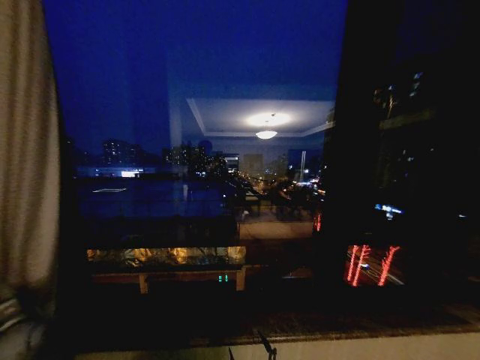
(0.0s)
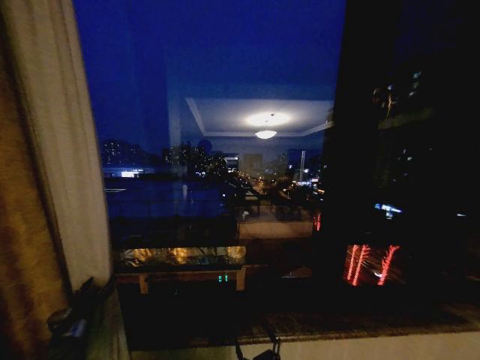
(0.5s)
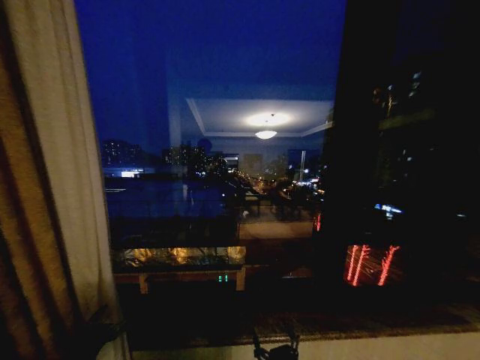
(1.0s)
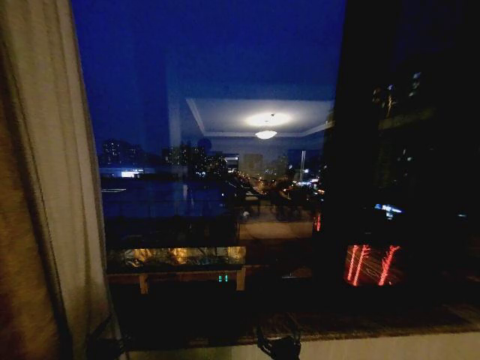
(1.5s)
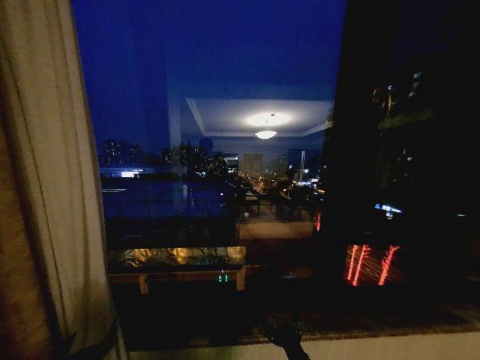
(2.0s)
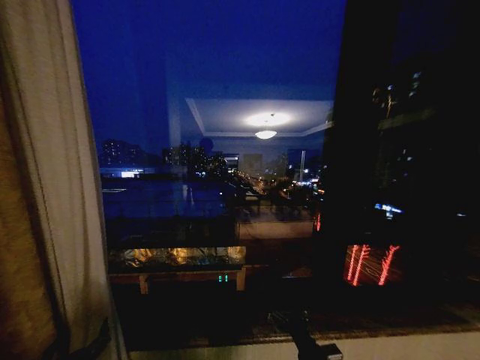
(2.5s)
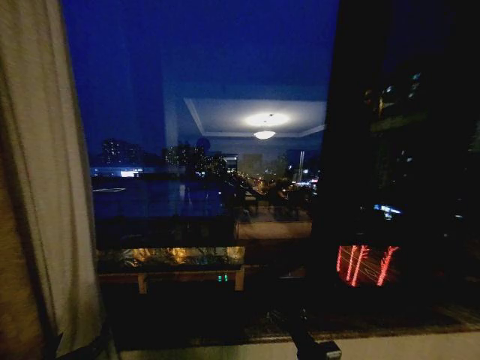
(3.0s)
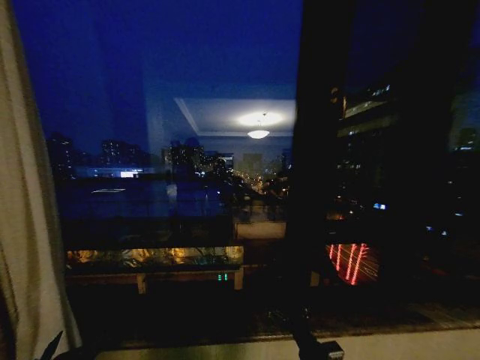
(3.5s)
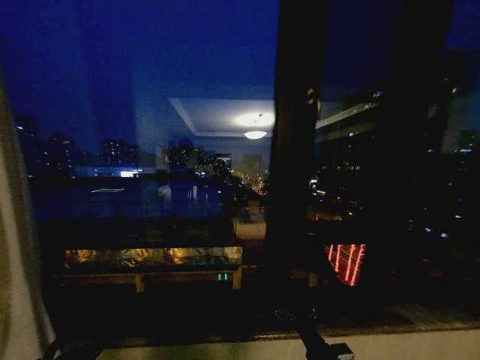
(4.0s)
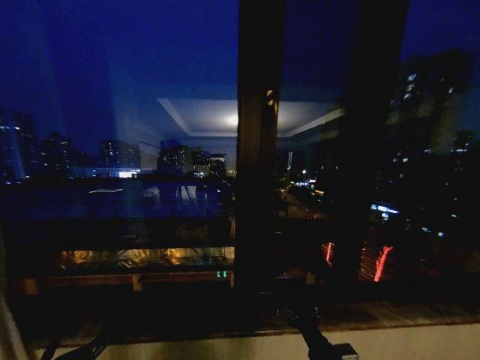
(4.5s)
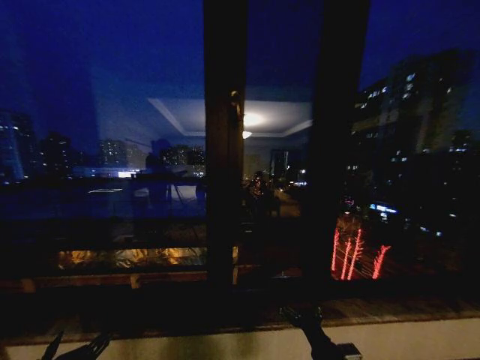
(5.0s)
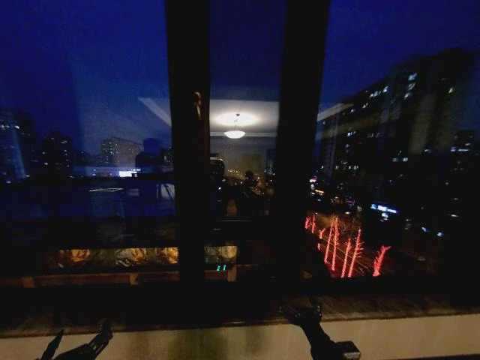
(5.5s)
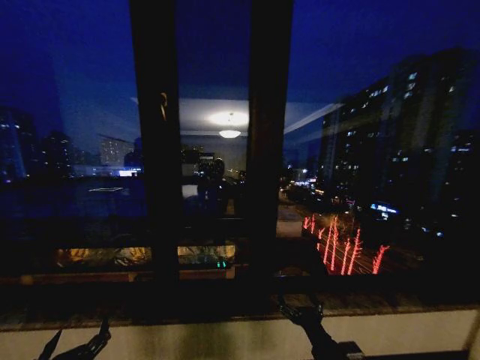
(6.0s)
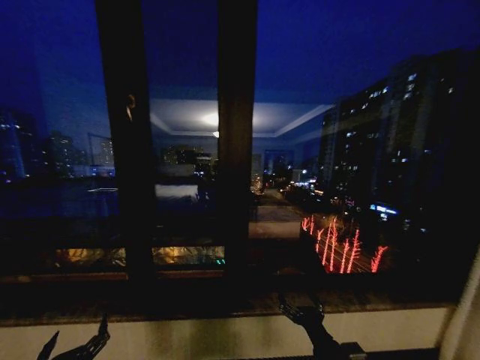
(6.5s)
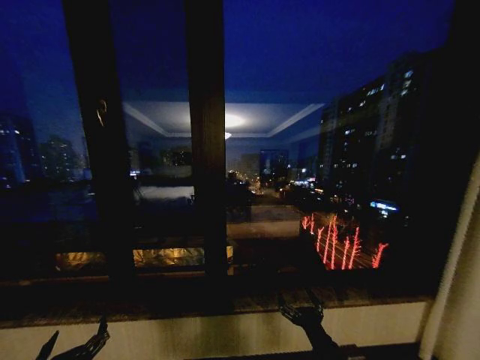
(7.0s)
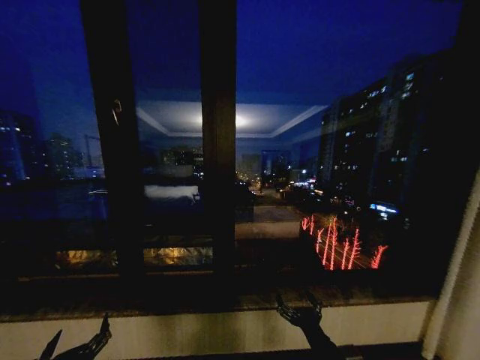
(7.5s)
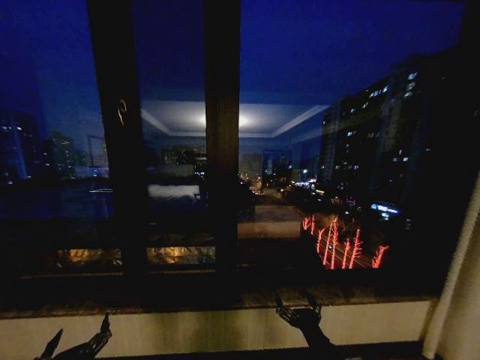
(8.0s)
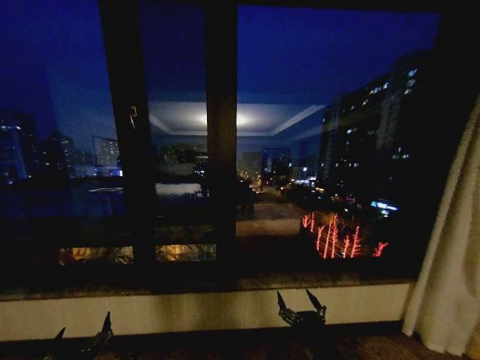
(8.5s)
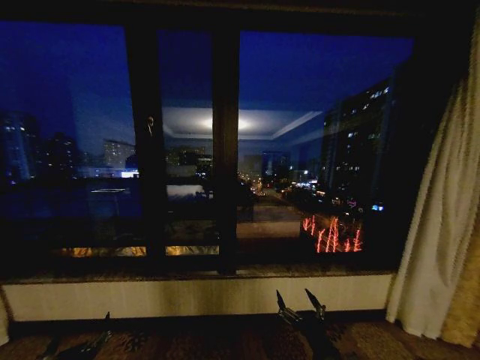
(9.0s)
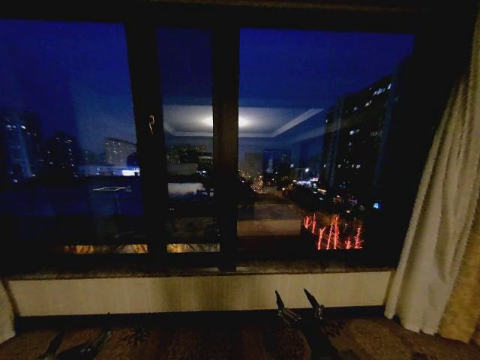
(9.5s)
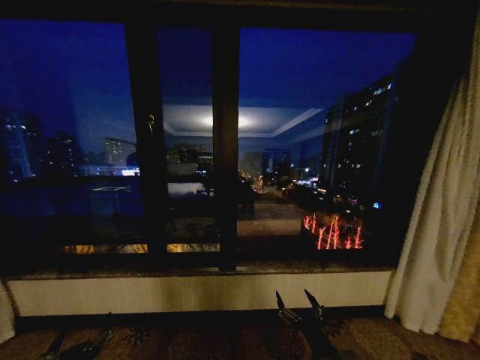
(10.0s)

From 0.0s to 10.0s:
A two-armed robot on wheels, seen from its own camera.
Task of the whole recording: Open the curtains by pulling them apart, changing their state from closed to fully open.
From 0.0s to 2.0s: The right gripper goes roughly 10 cm forward, upward and to the right, while the left gripper shifts roughly 30 cm to the right and backward, and opens up.
From 2.0s to 4.0s: The right gripper ends up some 5 cm from where it was.
From 6.0s to 8.0s: Both grippers stay put.

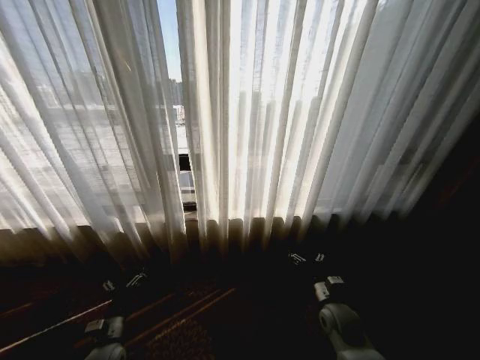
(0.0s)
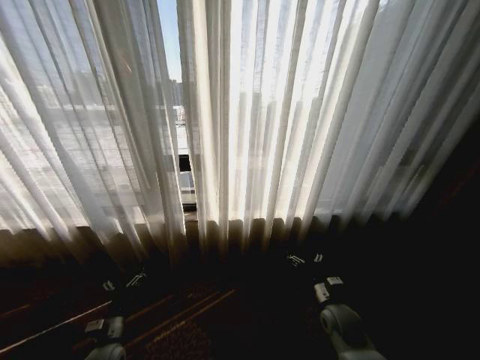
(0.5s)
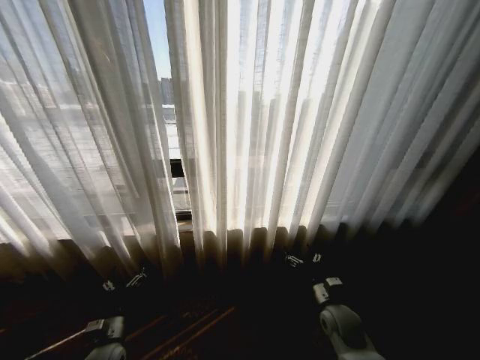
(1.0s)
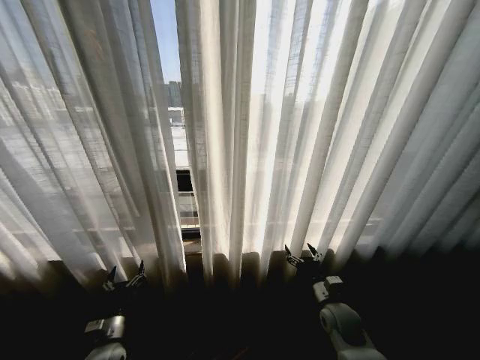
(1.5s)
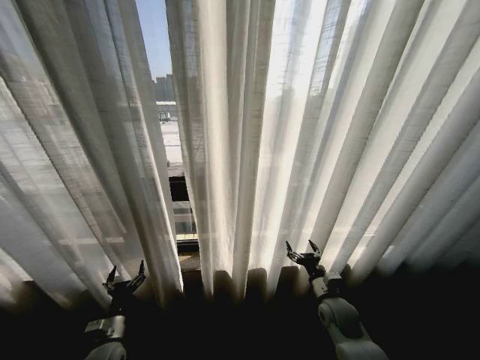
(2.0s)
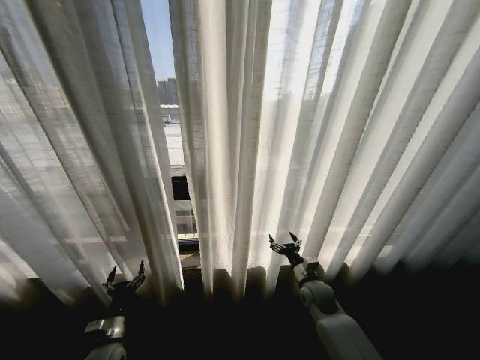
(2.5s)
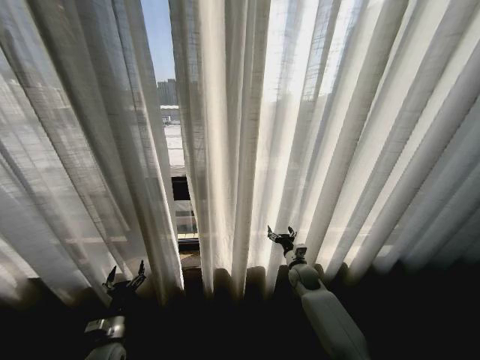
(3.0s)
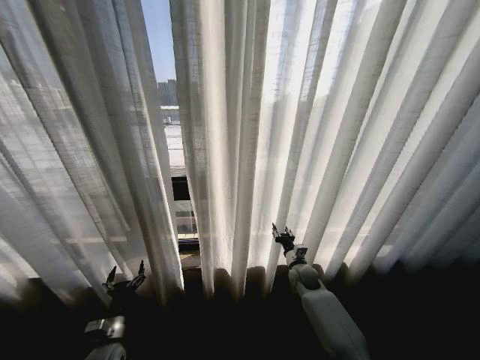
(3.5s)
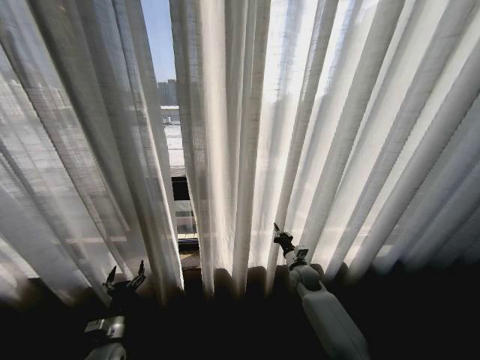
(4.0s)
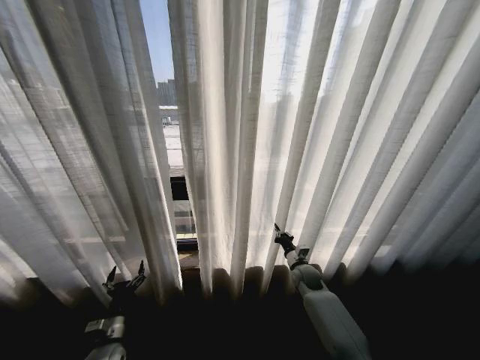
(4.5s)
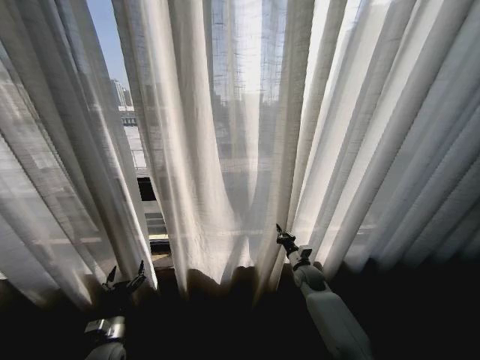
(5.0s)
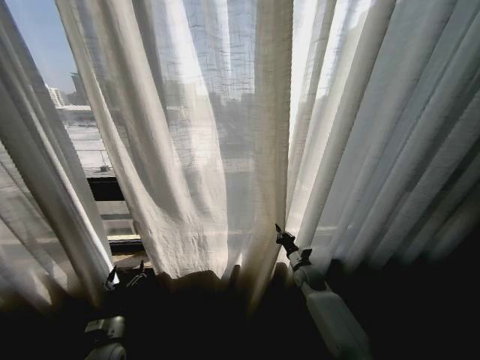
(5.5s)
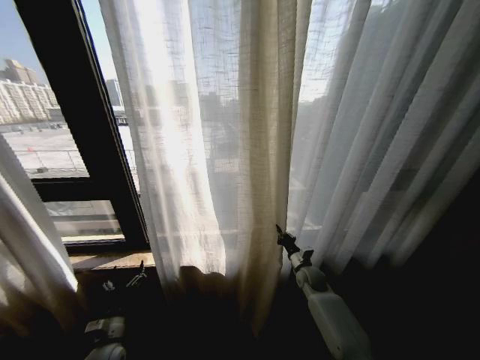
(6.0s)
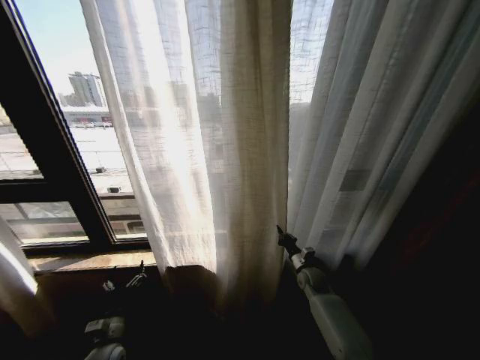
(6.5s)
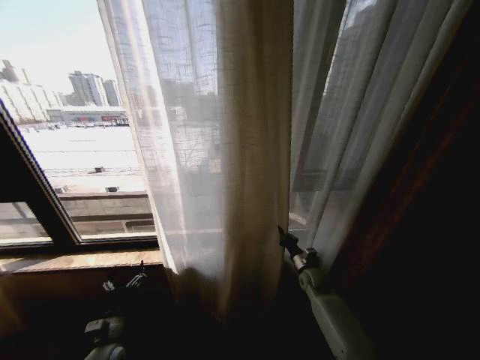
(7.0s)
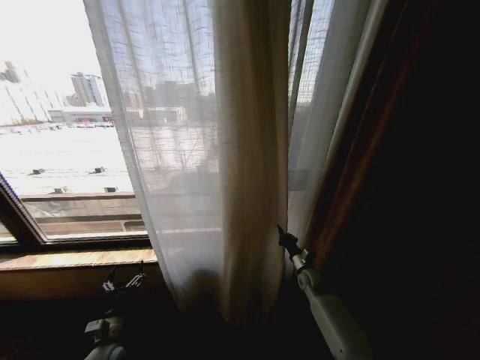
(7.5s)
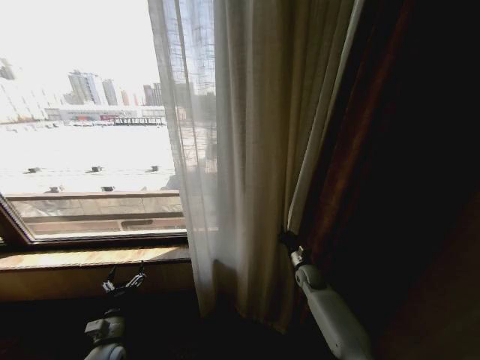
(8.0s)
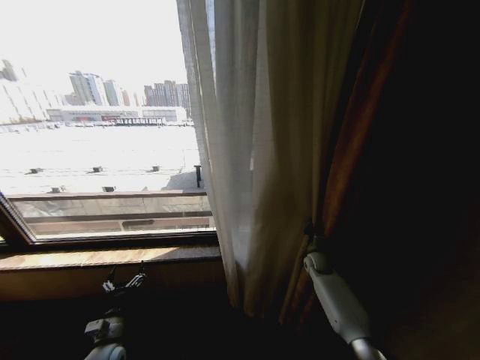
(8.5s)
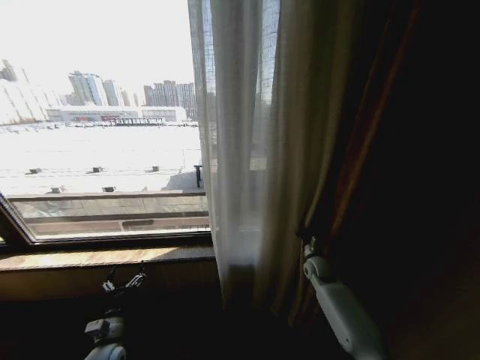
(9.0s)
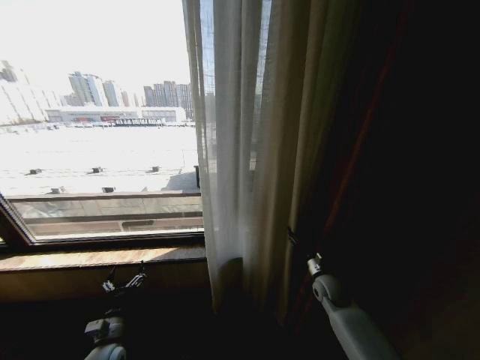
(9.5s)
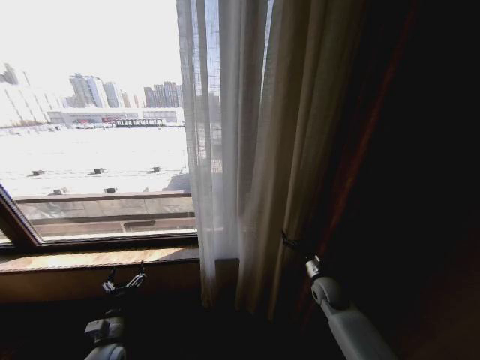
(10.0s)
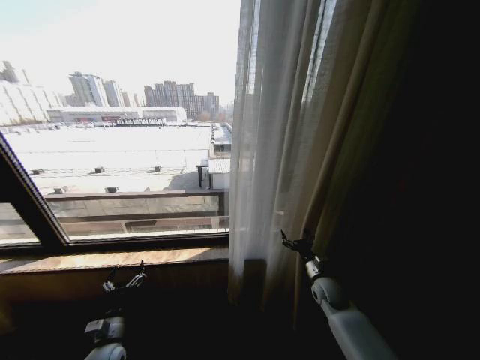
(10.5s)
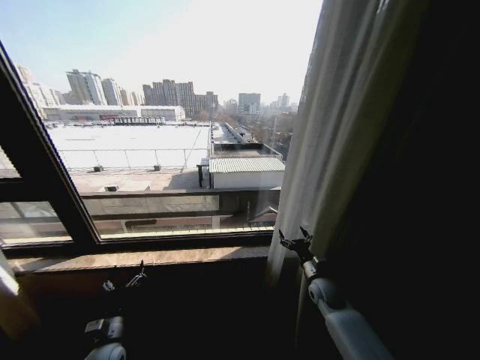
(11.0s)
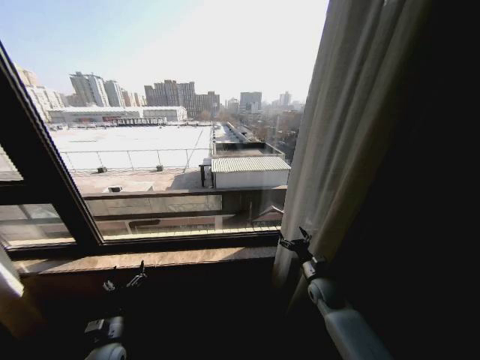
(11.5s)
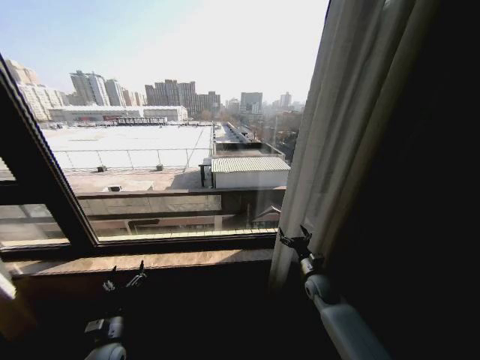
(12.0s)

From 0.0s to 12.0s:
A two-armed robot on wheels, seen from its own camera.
Task of the whole recording: Open the curtains by pulling them apart, changing their state from closed to fully open.
From 2.0s to 4.0s: The right gripper heads forward, covering about 15 cm, and closes up.
From 8.0s to 10.0s: The right gripper is displaced backward by approximately 5 cm, and opens up.

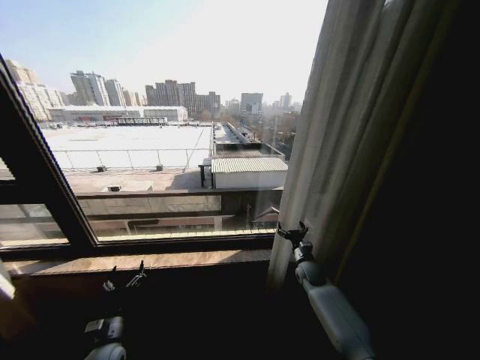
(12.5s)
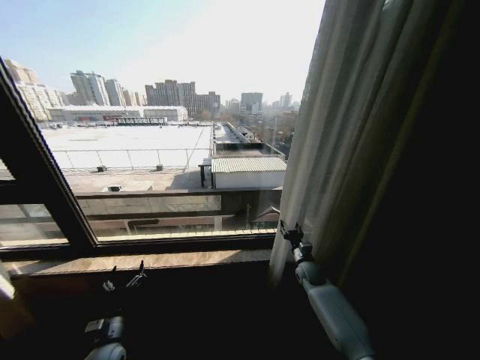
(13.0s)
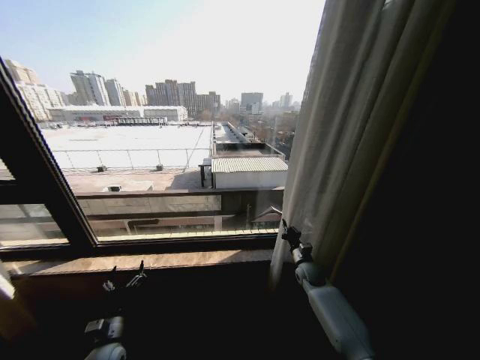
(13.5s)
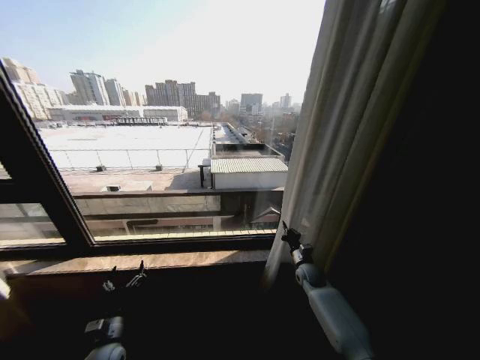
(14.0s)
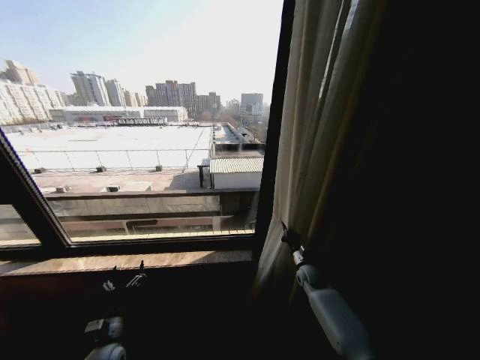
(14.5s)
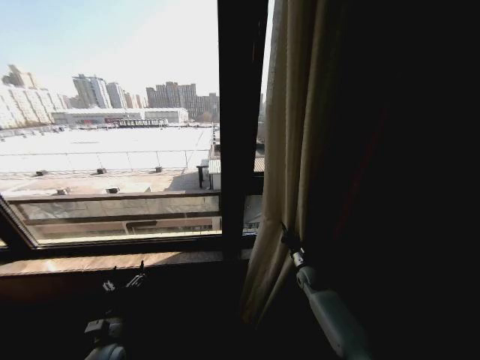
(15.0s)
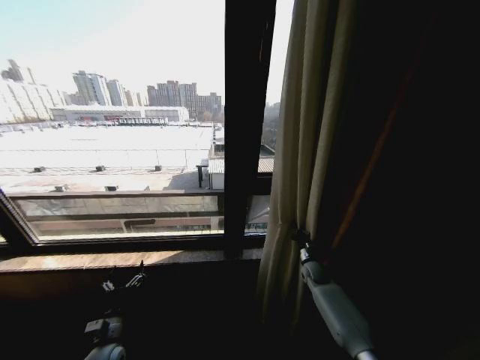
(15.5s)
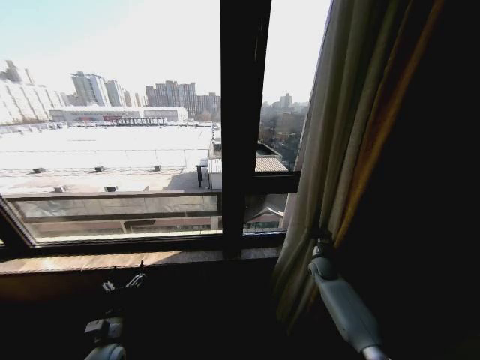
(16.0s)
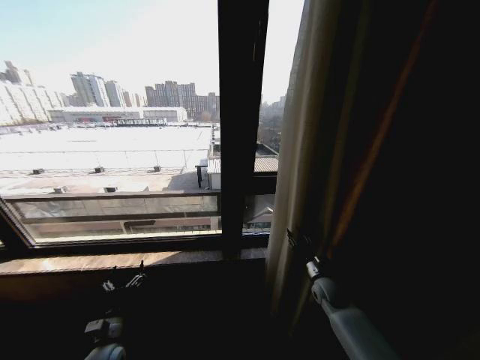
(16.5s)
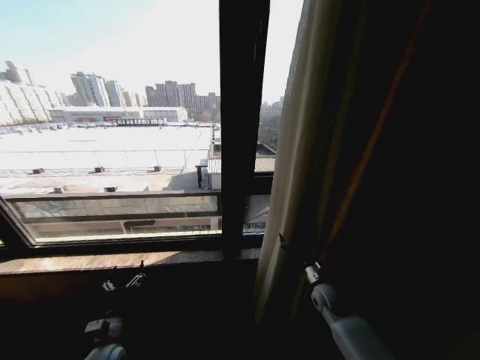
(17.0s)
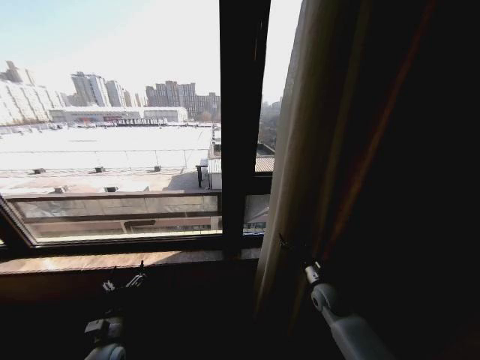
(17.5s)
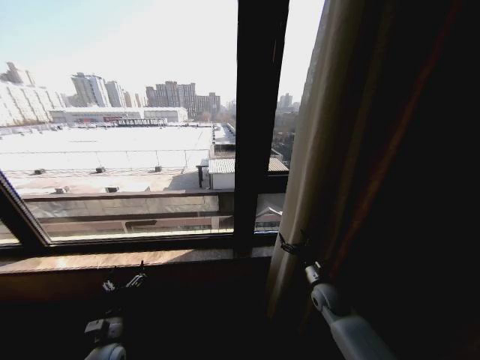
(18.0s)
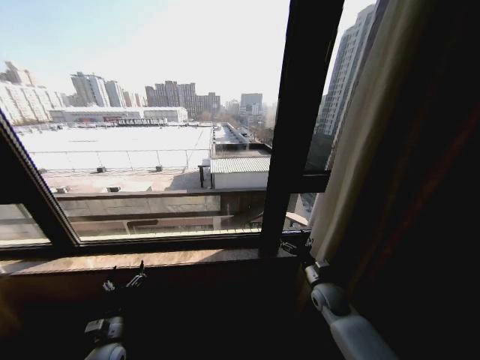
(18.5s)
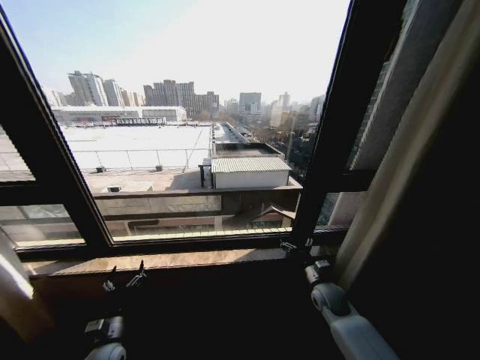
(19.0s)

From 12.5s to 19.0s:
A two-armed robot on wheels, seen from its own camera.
Task of the whole recording: Open the curtains by pulling them apart, changing their state from closed to fully open.
From 12.5s to 14.5s: The right gripper closes.
From 14.5s to 17.0s: The right gripper moves backward, roughly 10 cm, and opens up.
